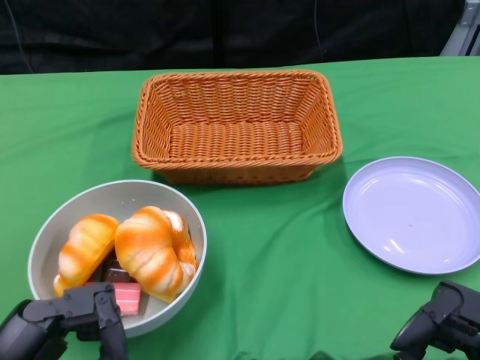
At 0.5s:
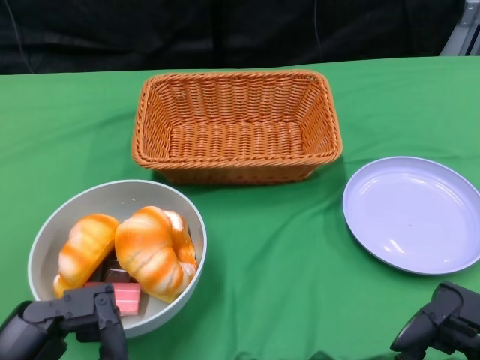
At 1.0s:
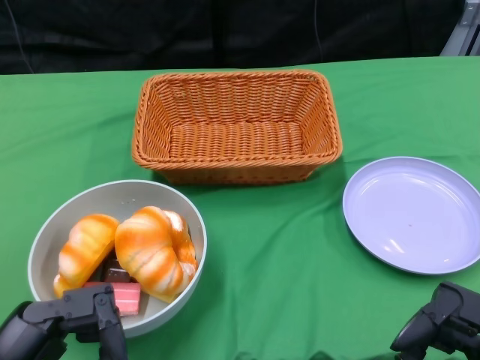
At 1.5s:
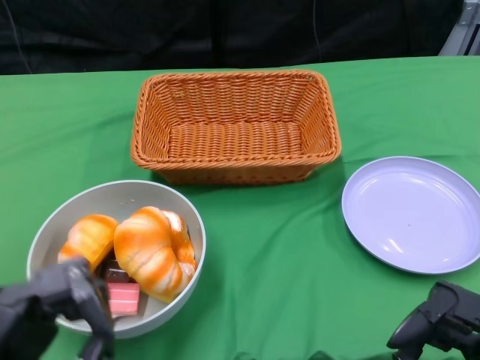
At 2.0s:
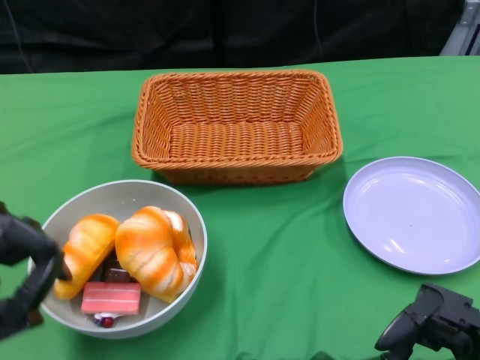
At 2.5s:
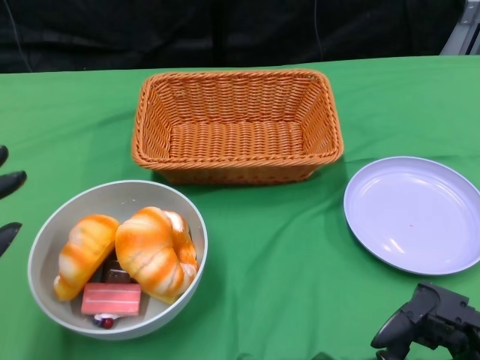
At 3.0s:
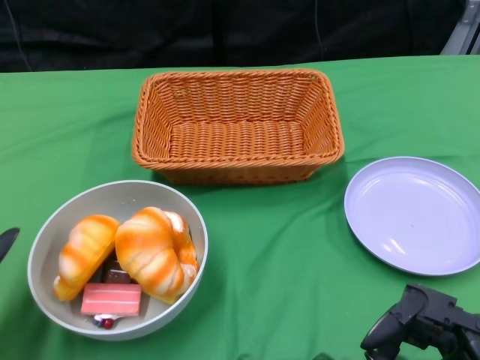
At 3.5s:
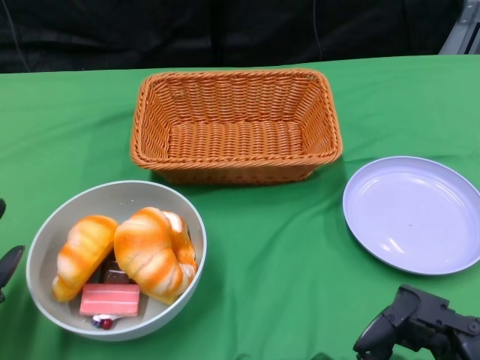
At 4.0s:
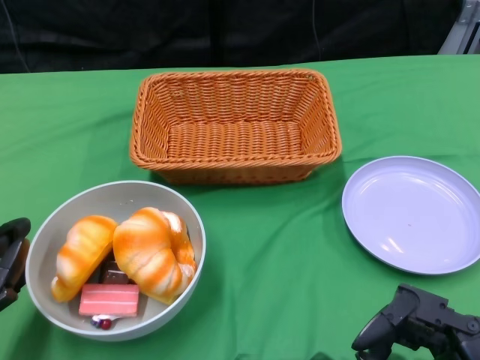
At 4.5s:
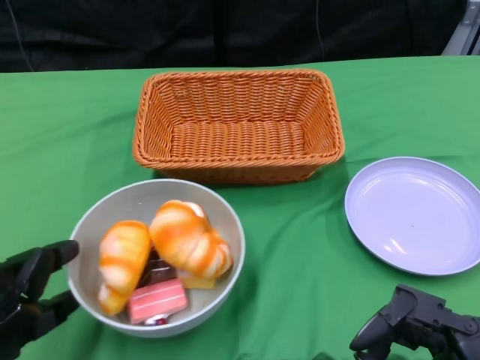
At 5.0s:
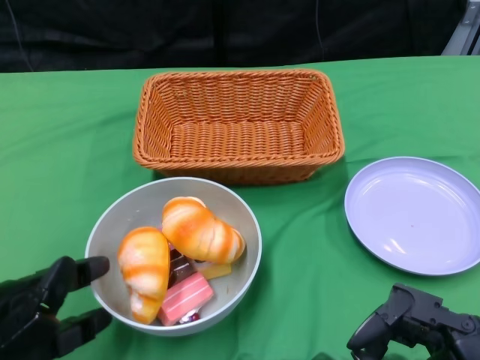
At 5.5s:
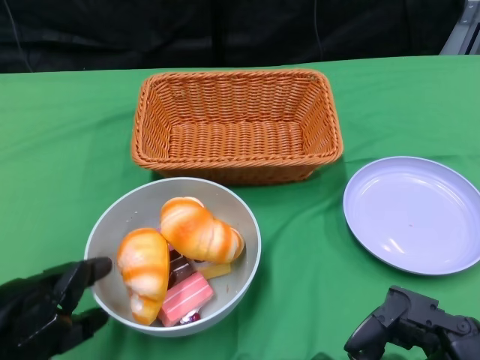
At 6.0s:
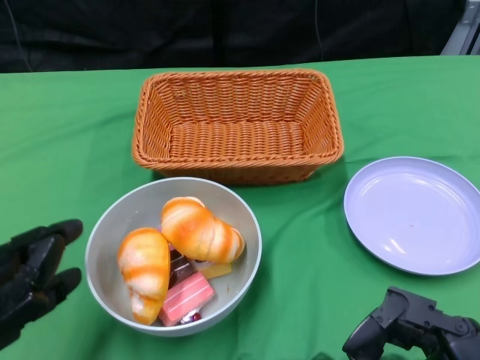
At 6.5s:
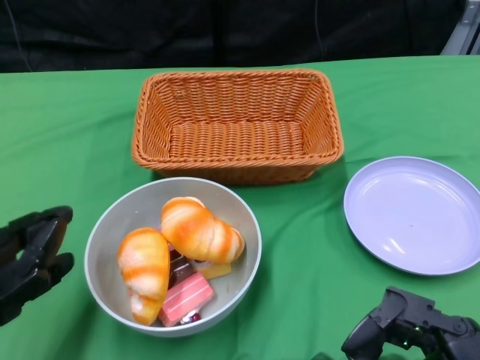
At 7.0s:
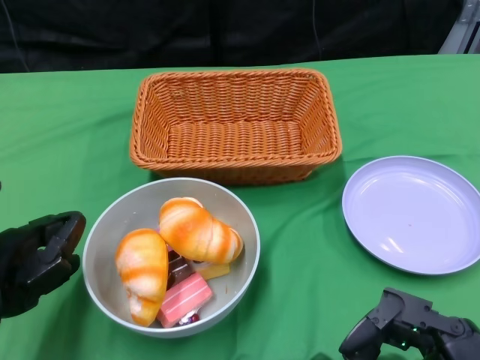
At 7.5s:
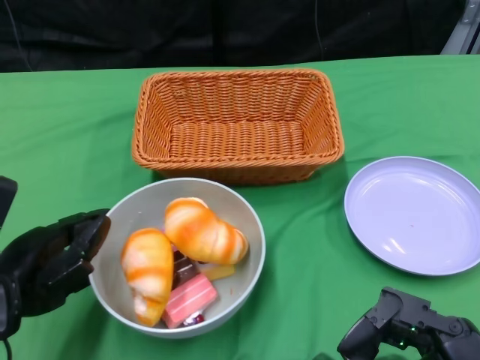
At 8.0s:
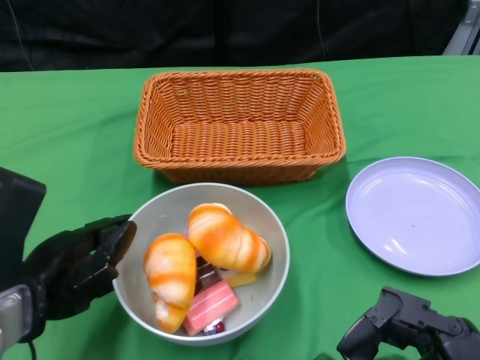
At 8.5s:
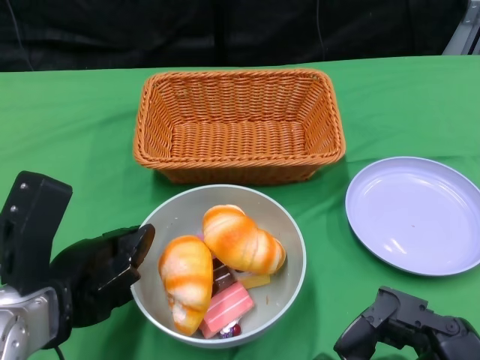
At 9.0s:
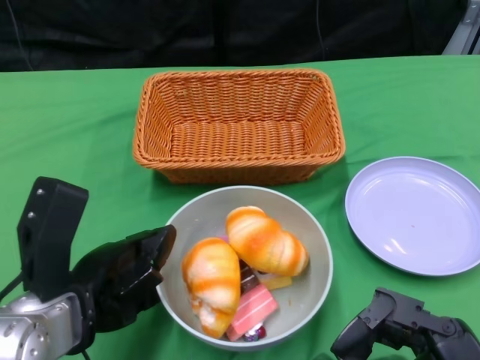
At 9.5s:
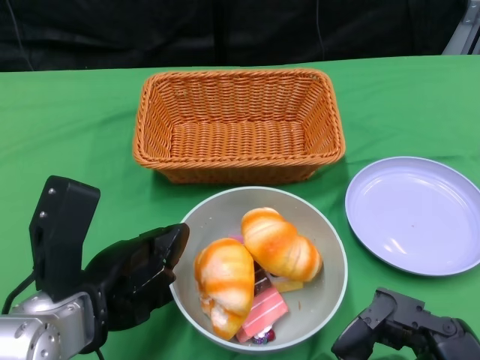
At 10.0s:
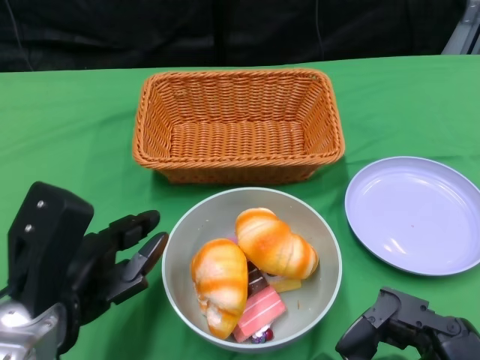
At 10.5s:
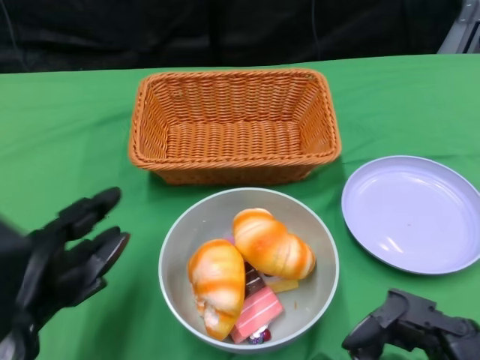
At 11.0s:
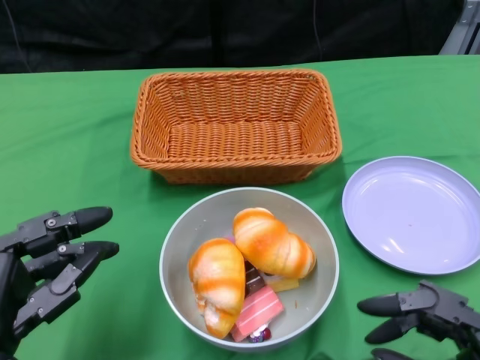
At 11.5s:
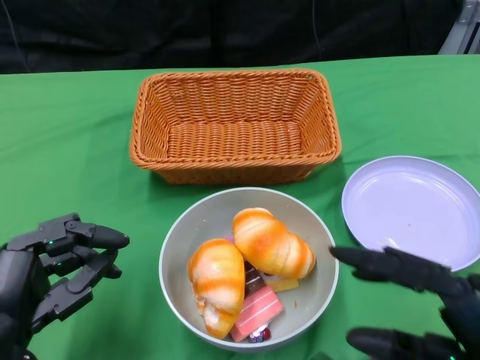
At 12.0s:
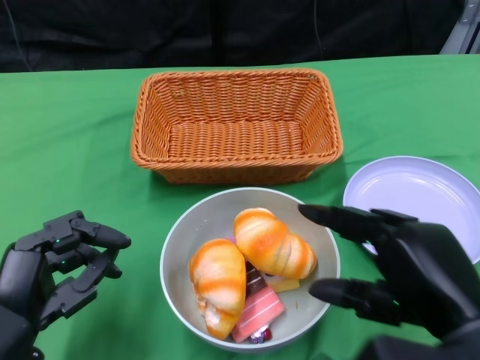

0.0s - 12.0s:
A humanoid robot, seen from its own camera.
Step, 0.0s - 10.0s: Push the bowl to the center of the table using the left gripper.
2.0s - 4.0s: The left hand shifts about 5 cm forward.
4.0s - 6.0s: The left hand moves roughly 5 cm.
6.0s - 8.0s: The left hand travels forward and downward by approximately 10 cm.
10.0s - 12.0s: The right hand is displaced upward and forward by approximately 10 cm, while the left hand shifts by roughly 5 cm.

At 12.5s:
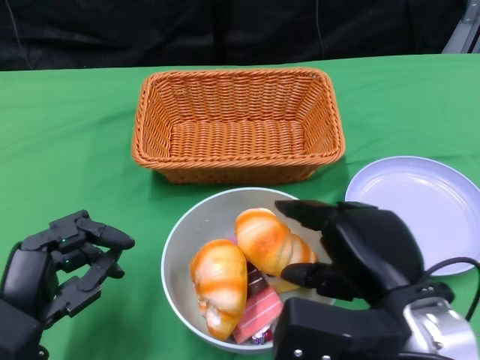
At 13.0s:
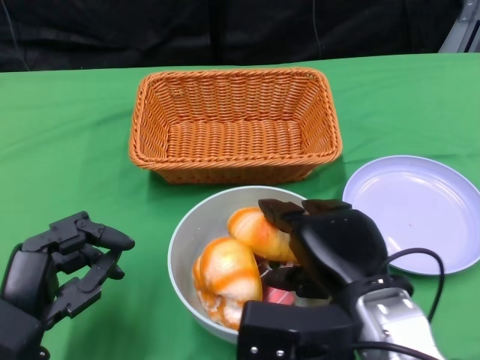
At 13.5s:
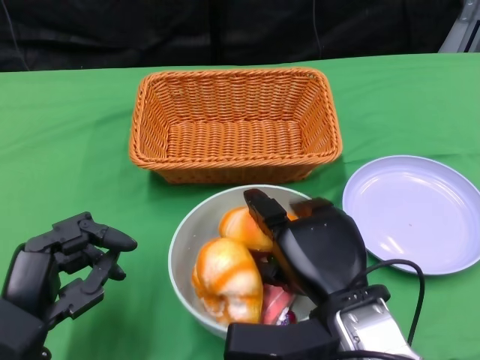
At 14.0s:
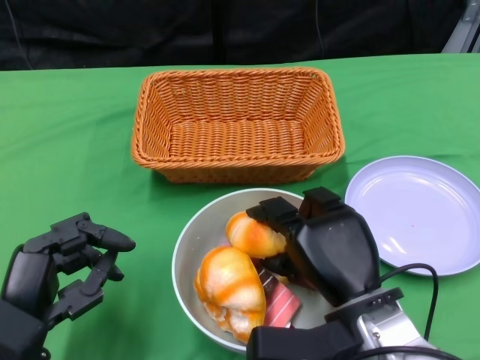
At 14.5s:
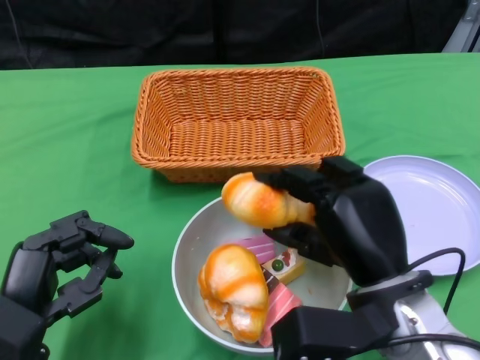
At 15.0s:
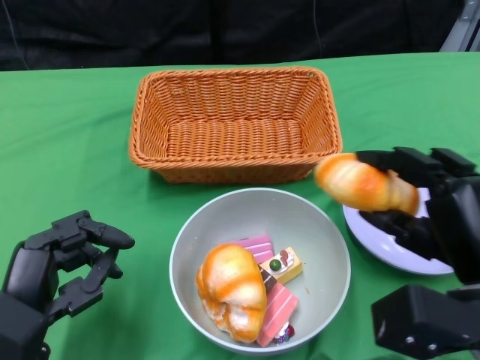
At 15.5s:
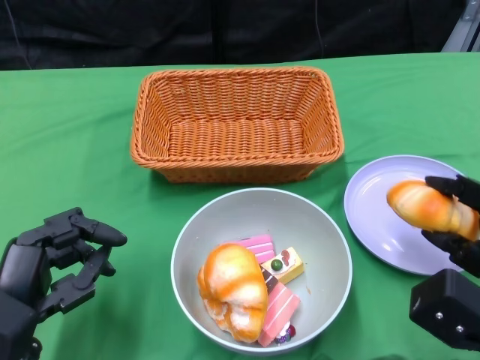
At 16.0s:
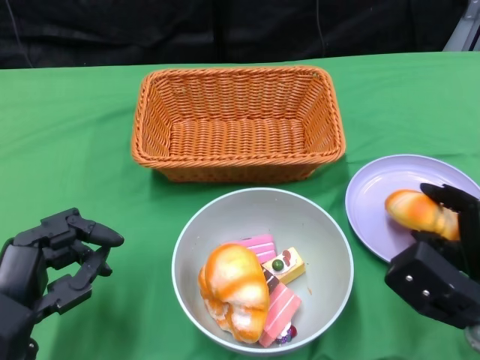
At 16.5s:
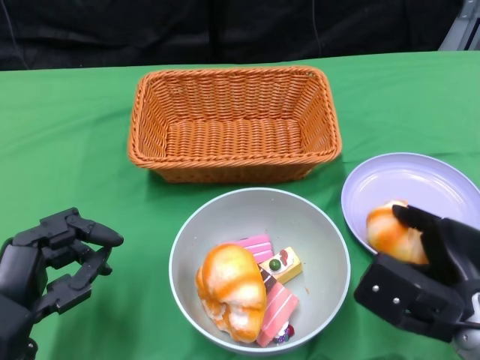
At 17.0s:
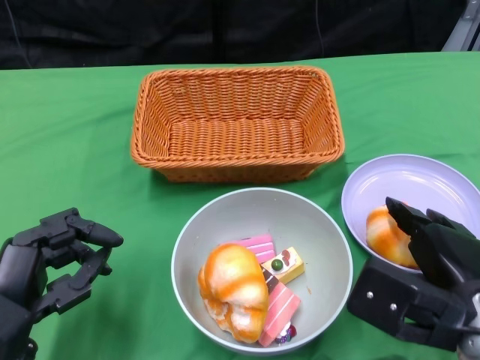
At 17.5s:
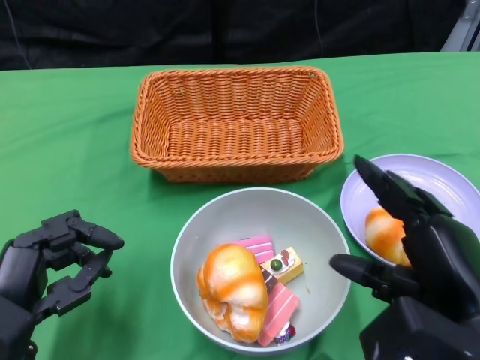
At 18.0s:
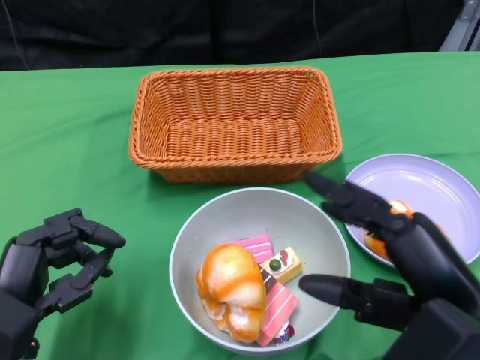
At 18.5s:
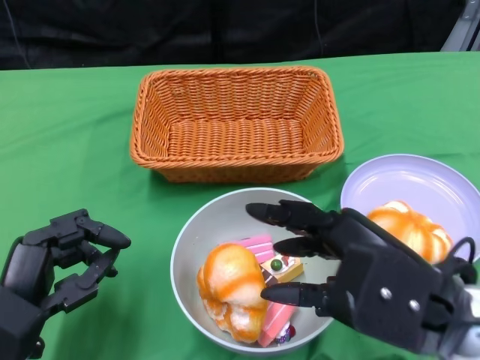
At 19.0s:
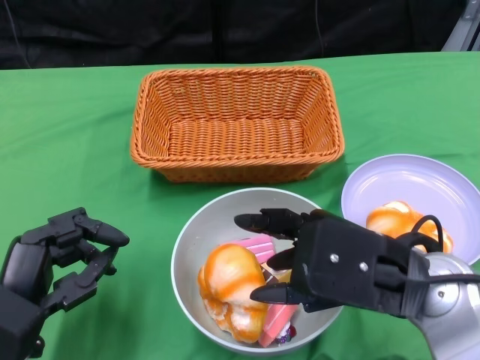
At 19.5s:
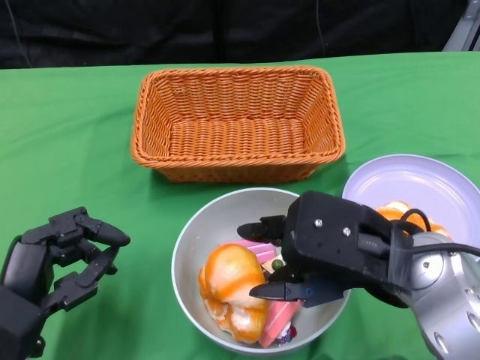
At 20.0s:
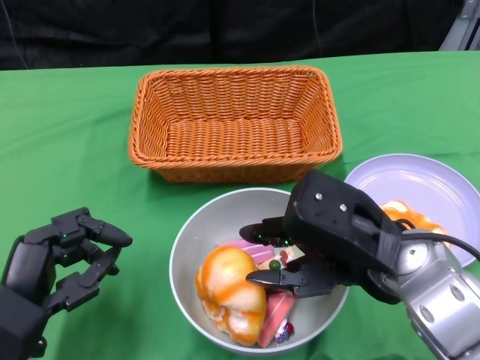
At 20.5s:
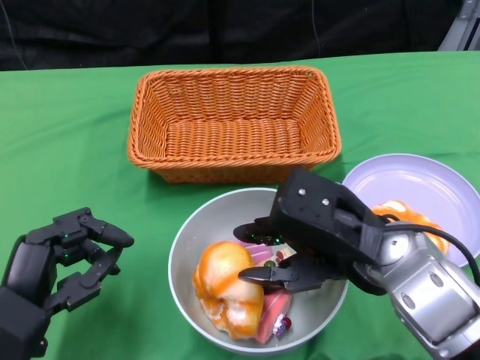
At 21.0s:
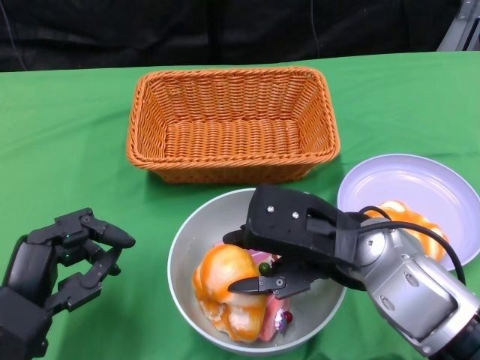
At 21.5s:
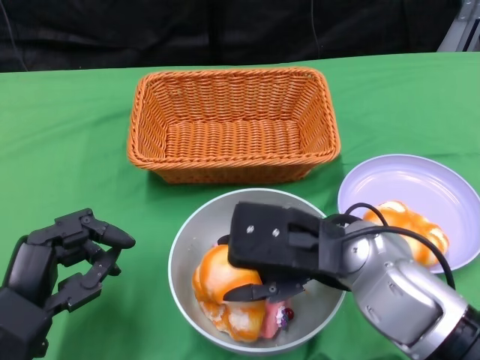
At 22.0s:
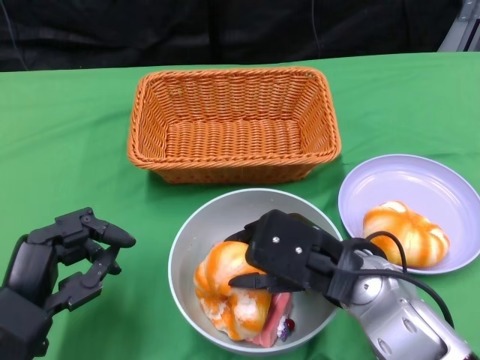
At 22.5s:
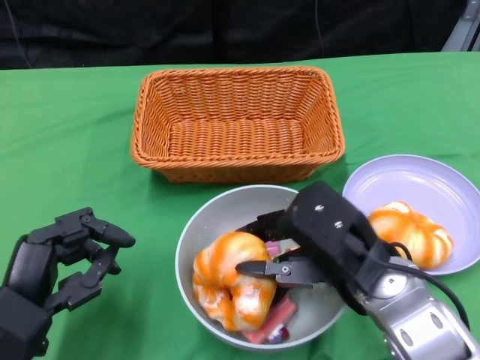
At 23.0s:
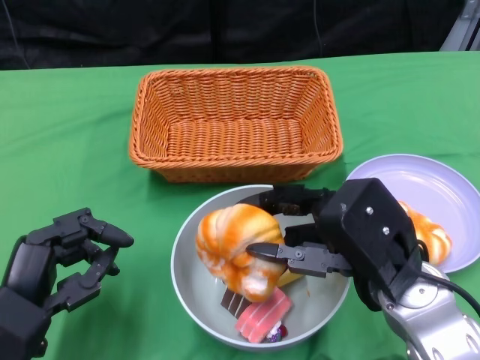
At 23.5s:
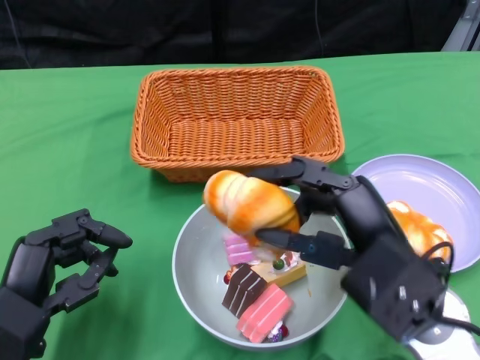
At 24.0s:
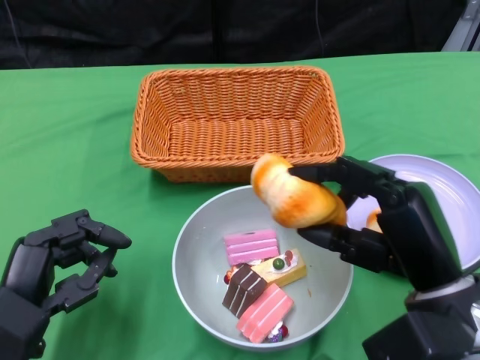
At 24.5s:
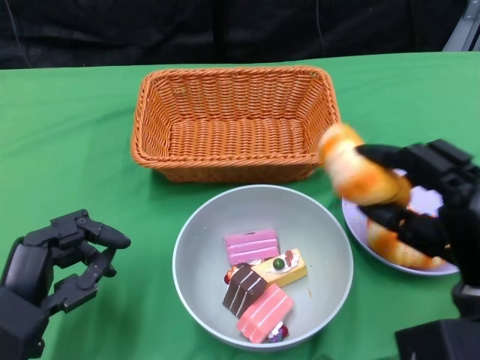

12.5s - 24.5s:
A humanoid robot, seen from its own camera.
14.5s - 16.5s: The right hand goes approximately 10 cm to the right.
16.5s - 18.5s: The right hand heads upward and to the left, covering roughly 15 cm.
18.5s - 20.5s: The right hand goes roughly 10 cm forward.
22.5s - 24.5s: The right hand is displaced to the right by roughly 10 cm.

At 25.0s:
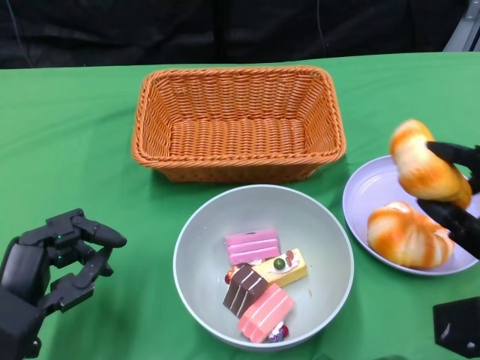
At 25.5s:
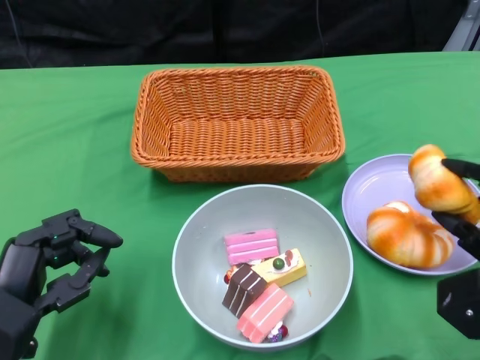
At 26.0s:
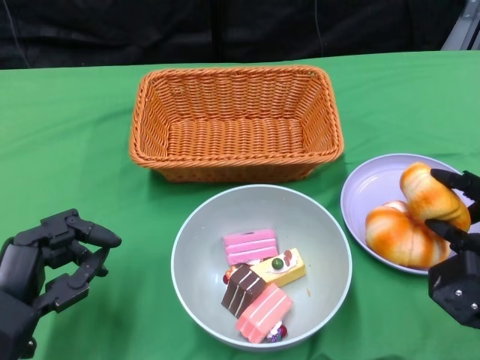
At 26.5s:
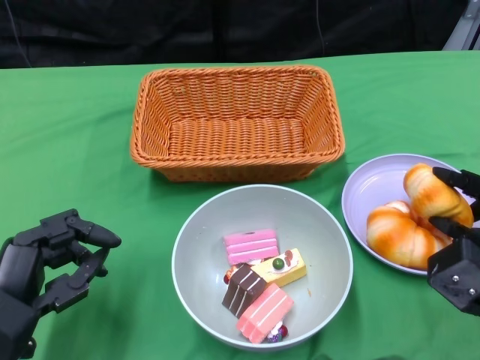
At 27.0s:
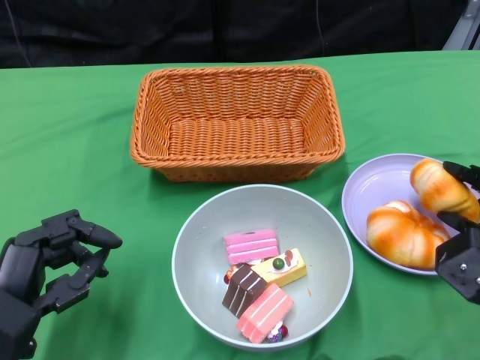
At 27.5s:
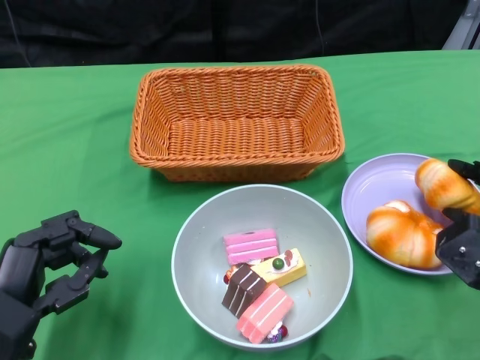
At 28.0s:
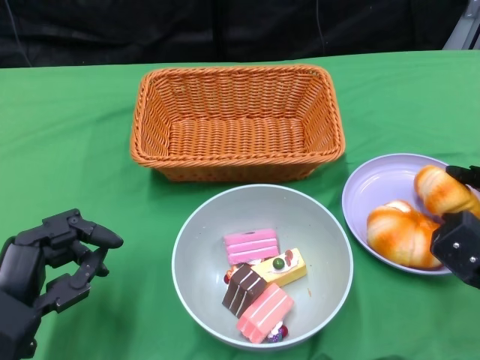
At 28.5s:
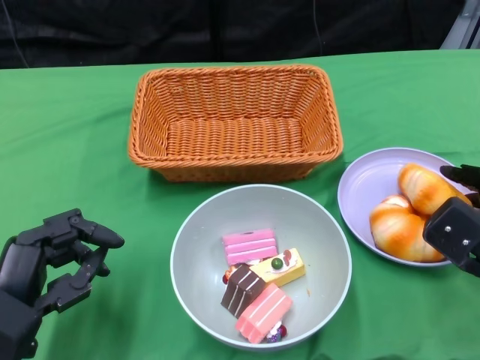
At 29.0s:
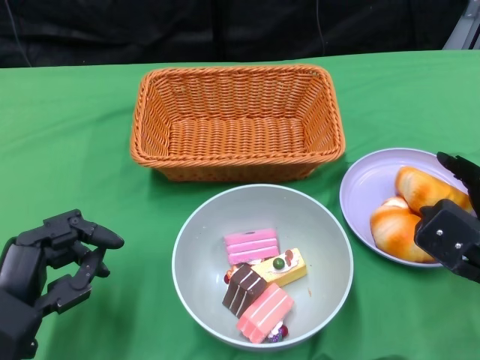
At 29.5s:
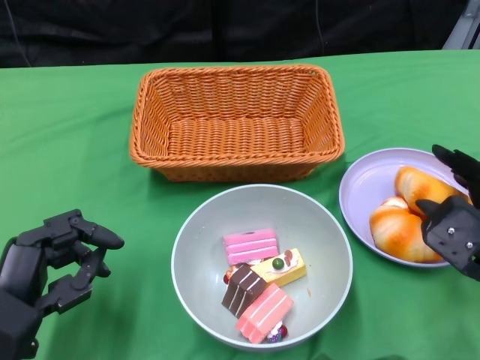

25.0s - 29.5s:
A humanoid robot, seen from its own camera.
25.0s - 27.0s: The right hand changes place by some 5 cm.
27.0s - 29.5s: The hands stay close to where they were, moving slightly.
